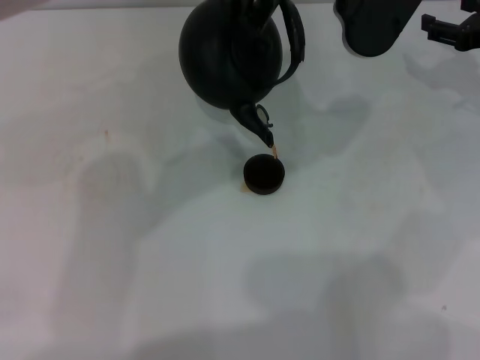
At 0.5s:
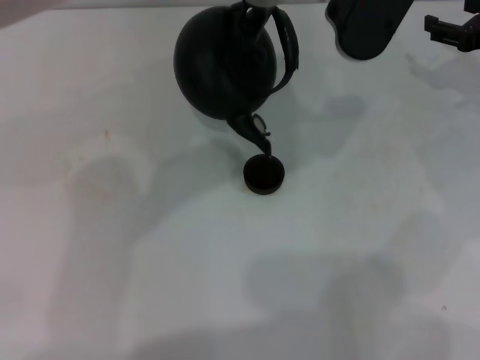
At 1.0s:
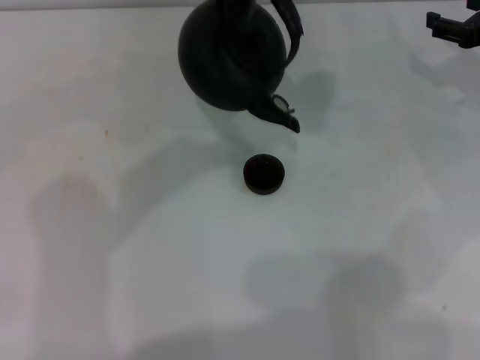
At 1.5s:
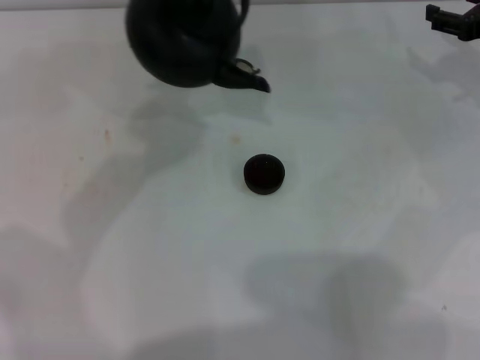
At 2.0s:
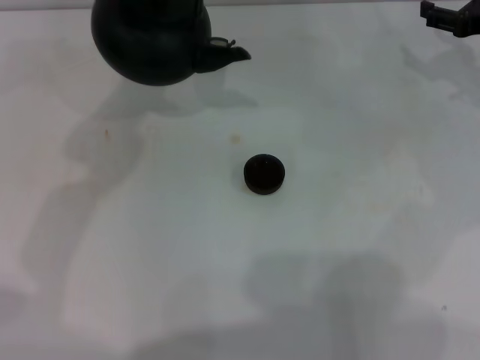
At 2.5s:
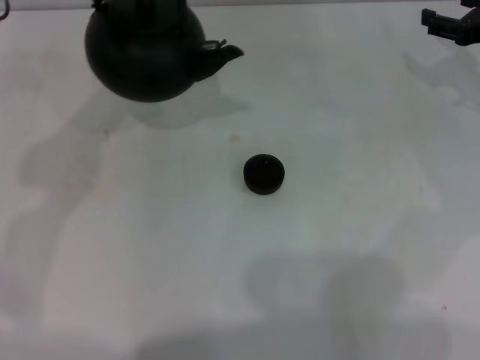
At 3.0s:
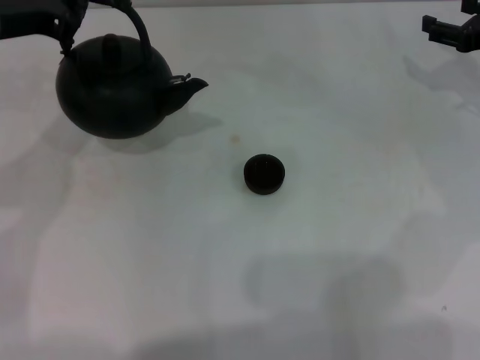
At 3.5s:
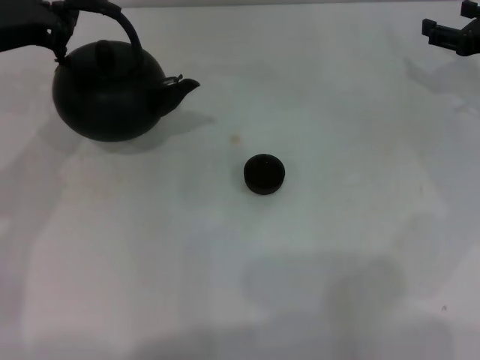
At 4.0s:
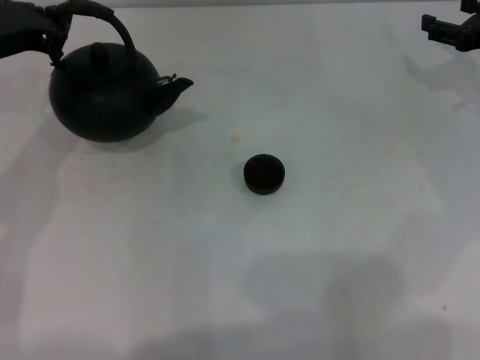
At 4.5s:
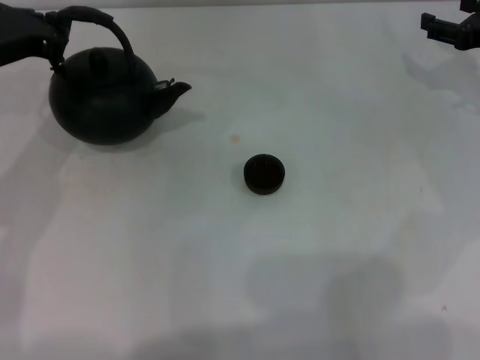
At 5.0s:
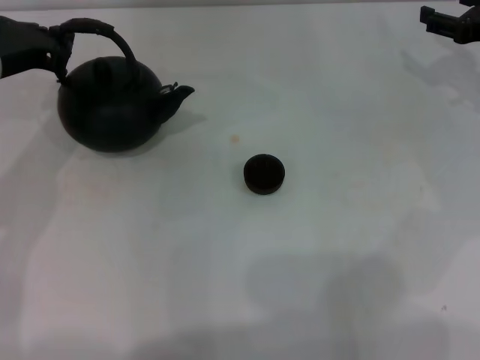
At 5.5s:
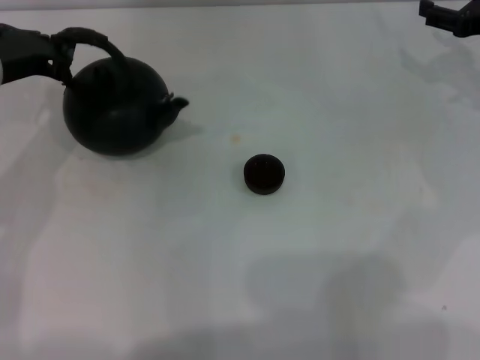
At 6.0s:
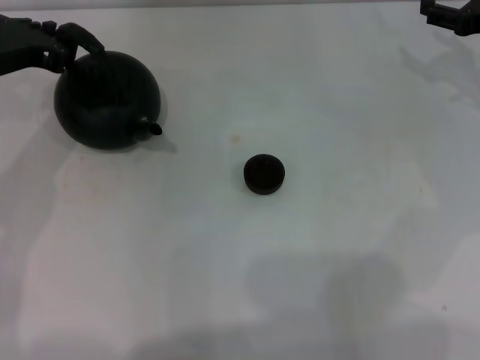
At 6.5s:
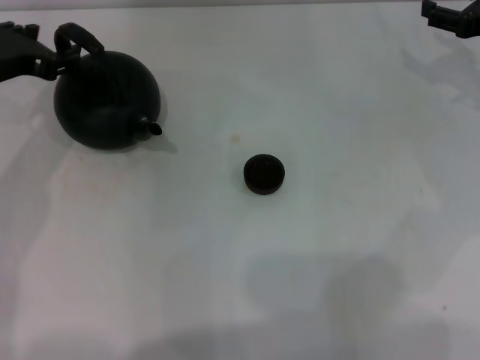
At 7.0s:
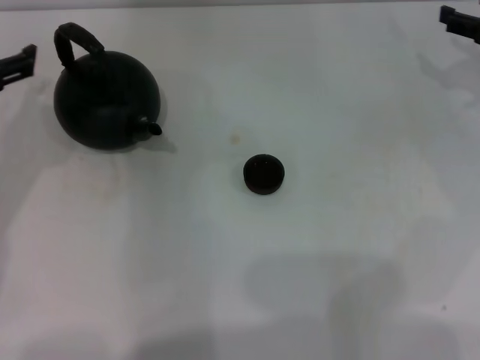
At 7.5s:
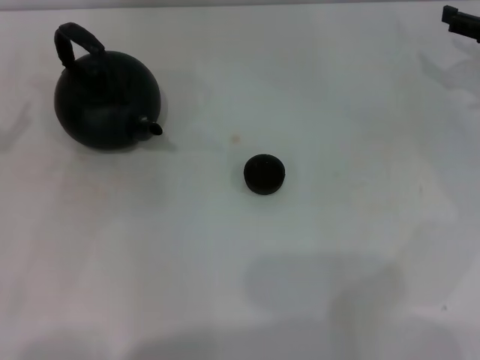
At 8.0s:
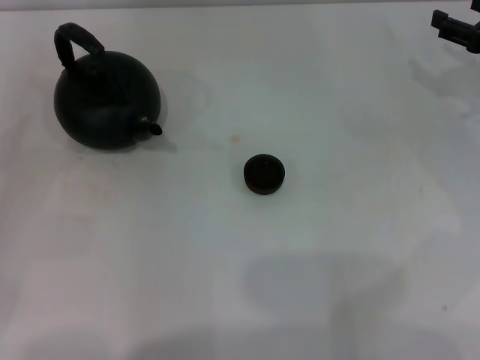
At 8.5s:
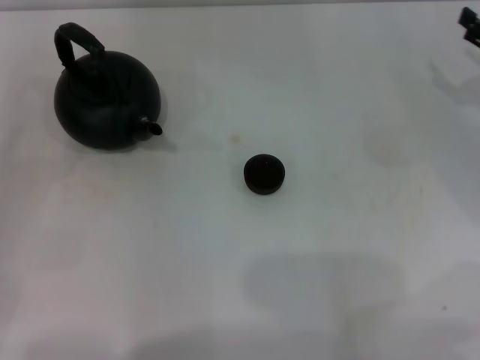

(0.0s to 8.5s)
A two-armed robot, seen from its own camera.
Task of the whole recording: Grasp the handle of the teapot with one hand and pour tea into the teacup.
Step, 1.5s - 6.5s: Put down the teapot with the left gripper.
0.0s - 2.0s: The left gripper heads to the left, covering approximately 20 cm.
2.0s - 4.0s: The left gripper travels to the left and downward by roughly 15 cm.
4.0s - 6.5s: The left gripper opens.
6.5s - 8.5s: The right gripper travels backward by some 5 cm, while the left gripper heads backward, to the left and downward, covering approximately 20 cm, and opens its fingers.

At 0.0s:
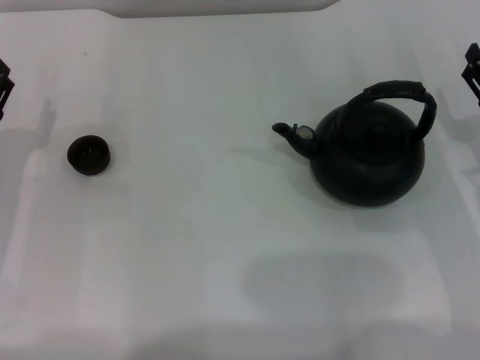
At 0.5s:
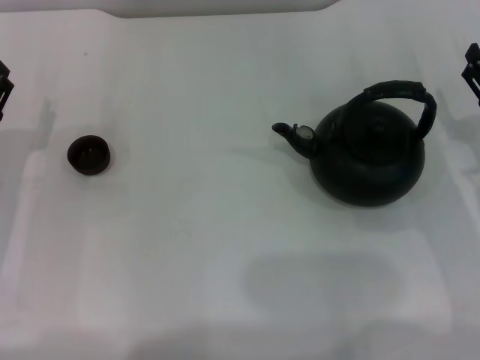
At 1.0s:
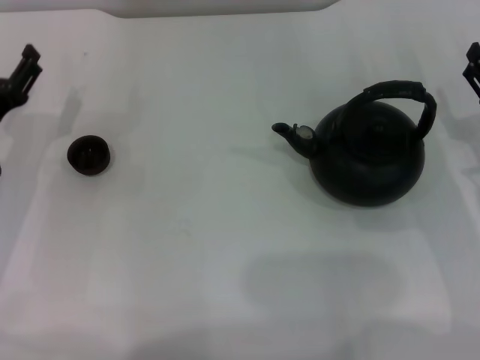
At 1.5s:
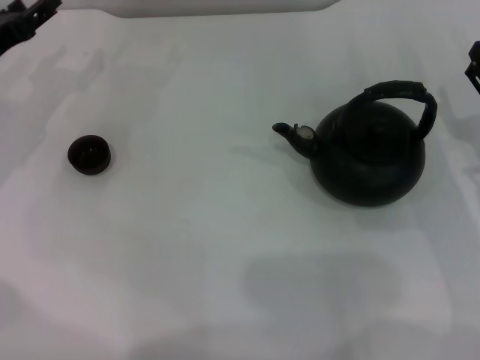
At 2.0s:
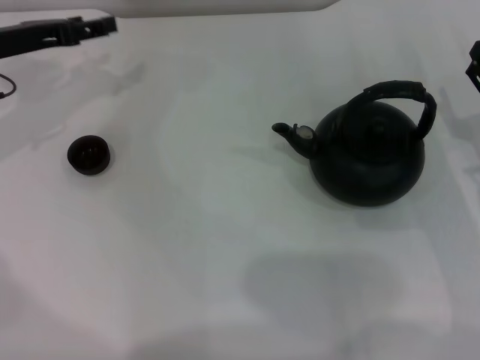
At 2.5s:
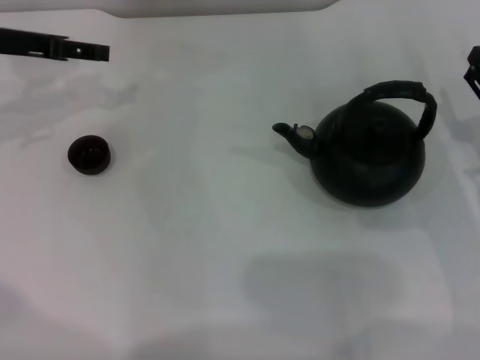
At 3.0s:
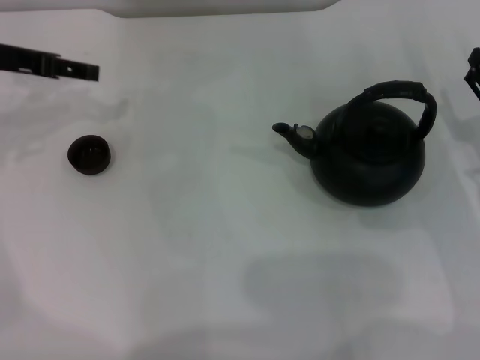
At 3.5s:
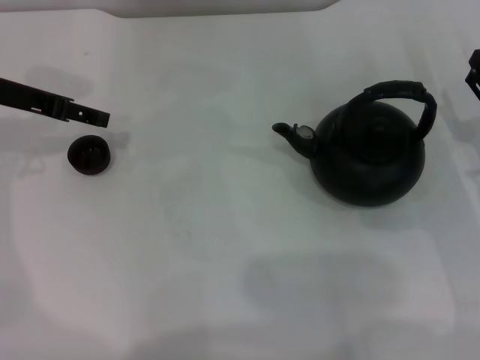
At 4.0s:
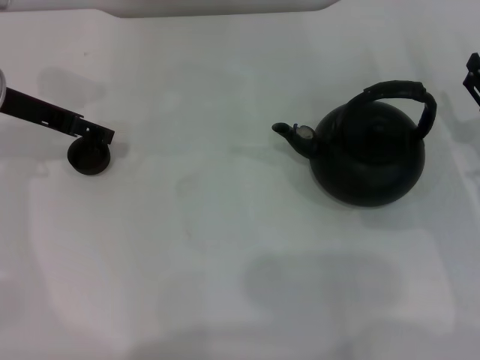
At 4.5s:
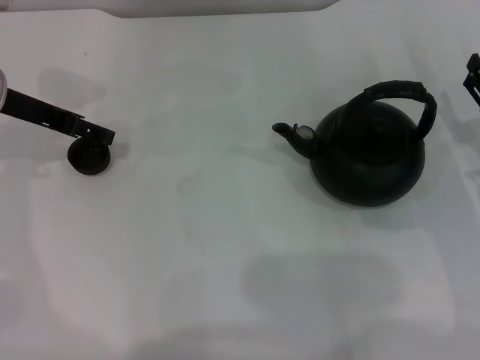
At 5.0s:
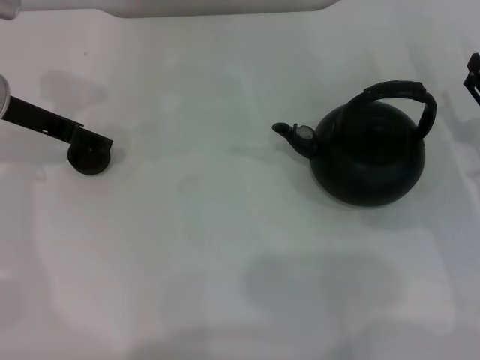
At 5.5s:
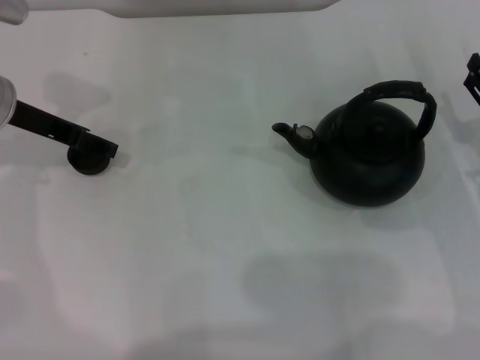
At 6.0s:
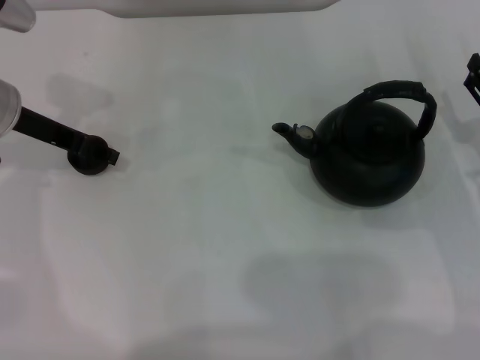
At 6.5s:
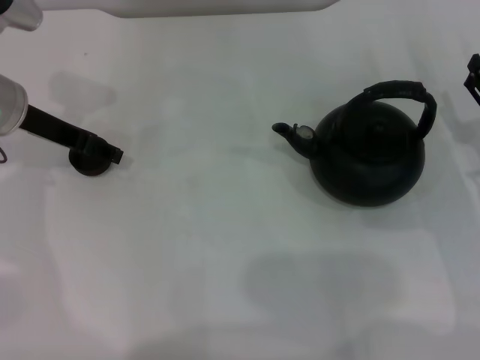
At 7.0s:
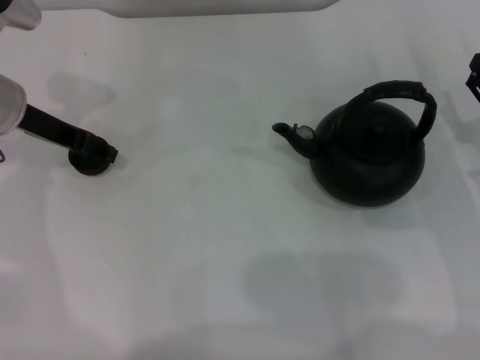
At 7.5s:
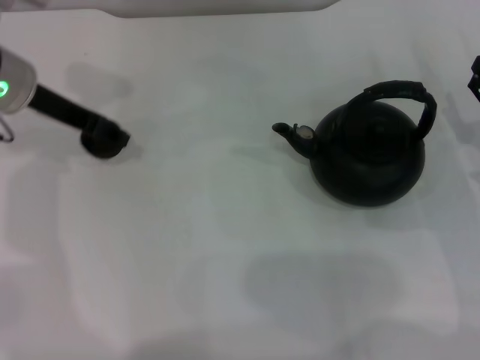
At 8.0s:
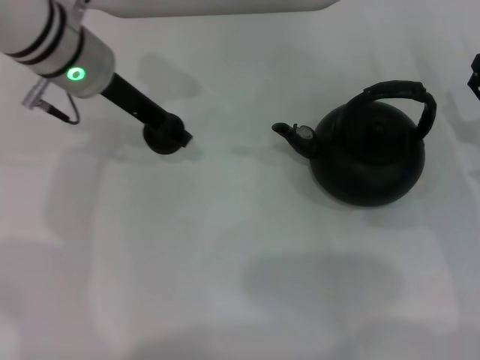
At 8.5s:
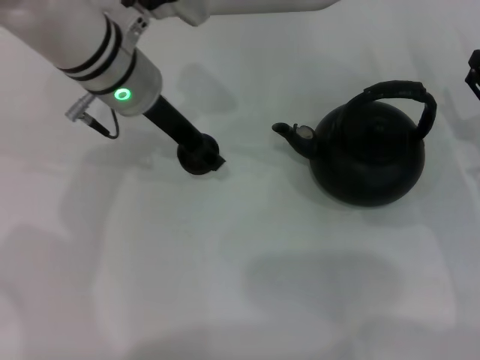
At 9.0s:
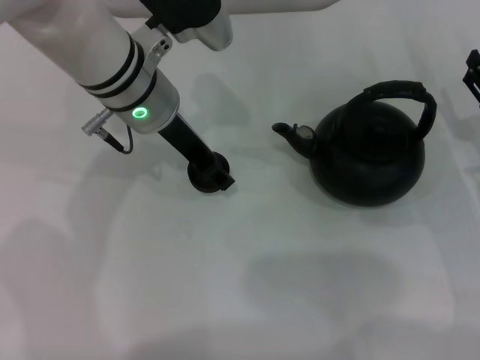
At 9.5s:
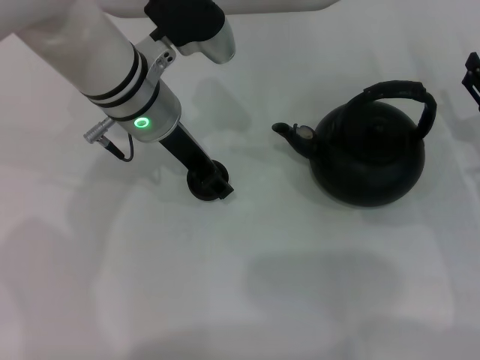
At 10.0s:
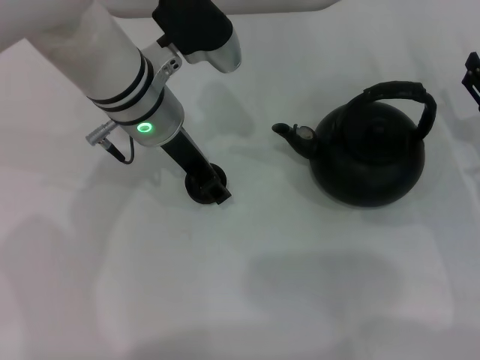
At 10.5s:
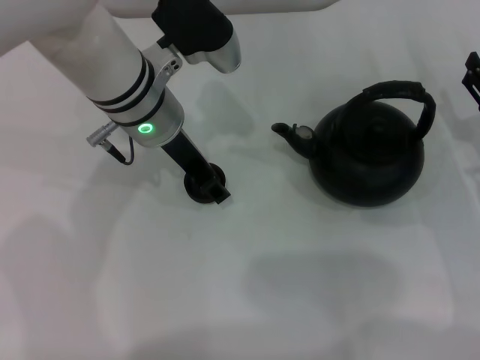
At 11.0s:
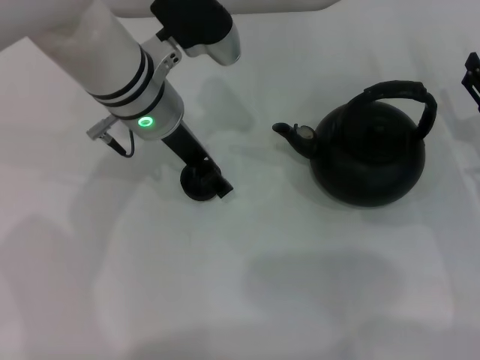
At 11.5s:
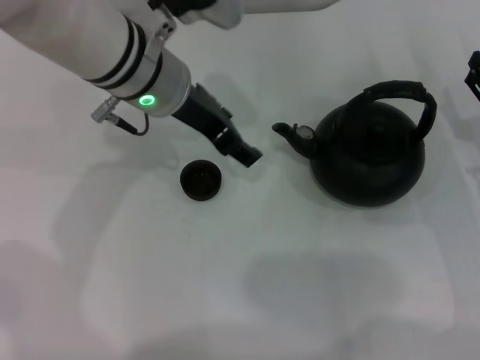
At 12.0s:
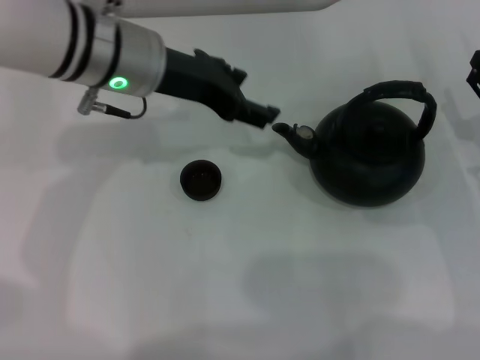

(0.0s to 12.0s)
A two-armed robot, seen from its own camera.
Task of the whole recording: Grasp the handle of the teapot with one hand and pour tea into the teacup.
Step, 0.0s - 7.5s: Pick up the teacup with the left gripper.
Step, 8.0s - 11.5s: Place the teacup in the center of view with the left gripper.
0.0s - 2.0s: The left gripper is displaced forward and upward by roughly 15 cm.
2.0s - 4.0s: The left gripper opens.
4.0s - 6.0s: The grippers move only a little.
6.0s - 8.0s: The left gripper moves to the right, approximately 10 cm, and closes up.
8.0s - 10.0s: The left gripper moves to the right, approximately 5 cm.
10.0s - 12.0s: The left gripper ends up approximately 5 cm from where it was, and opens up.

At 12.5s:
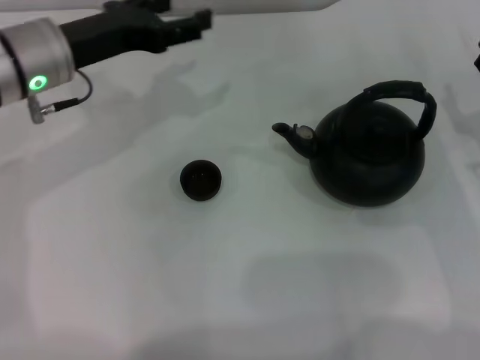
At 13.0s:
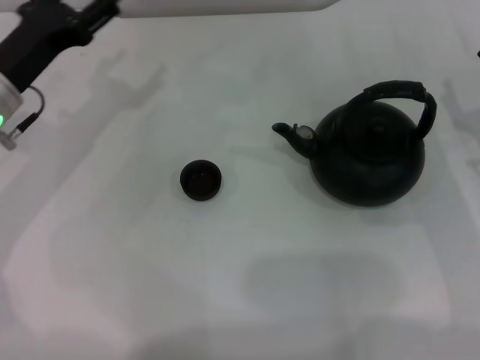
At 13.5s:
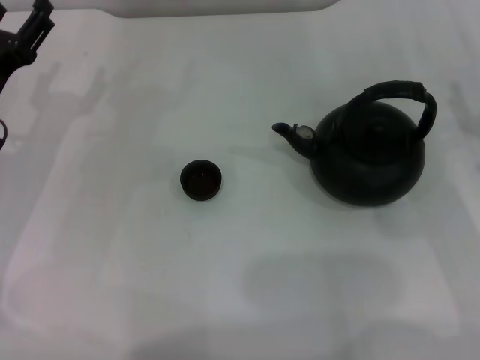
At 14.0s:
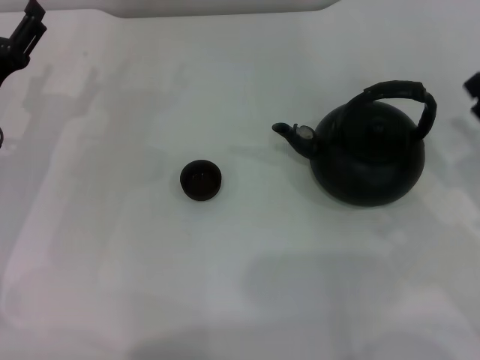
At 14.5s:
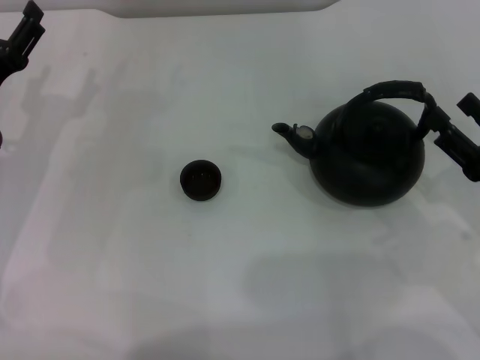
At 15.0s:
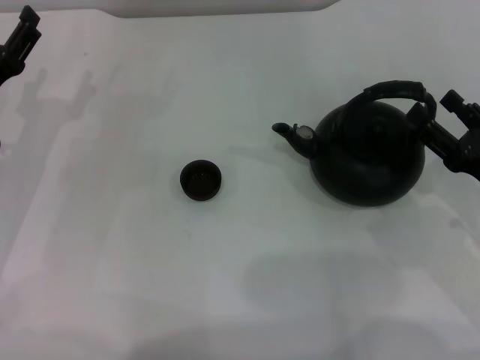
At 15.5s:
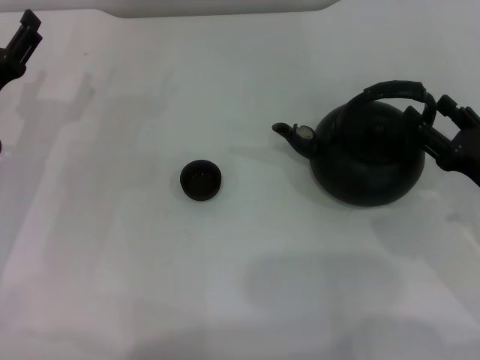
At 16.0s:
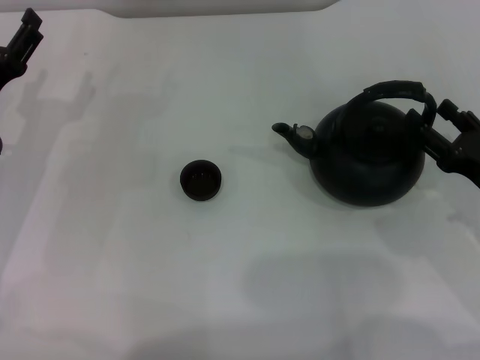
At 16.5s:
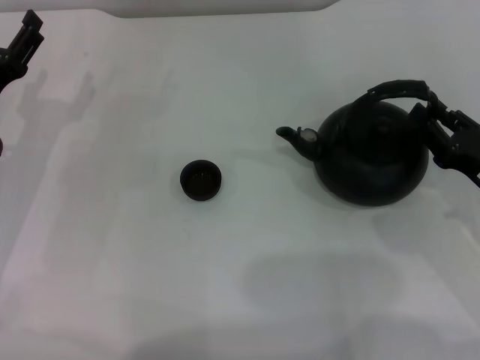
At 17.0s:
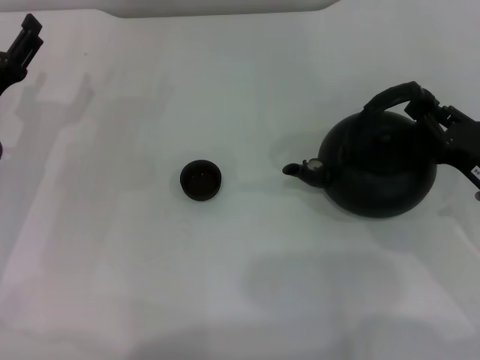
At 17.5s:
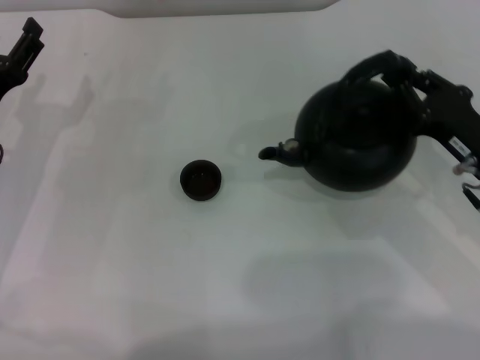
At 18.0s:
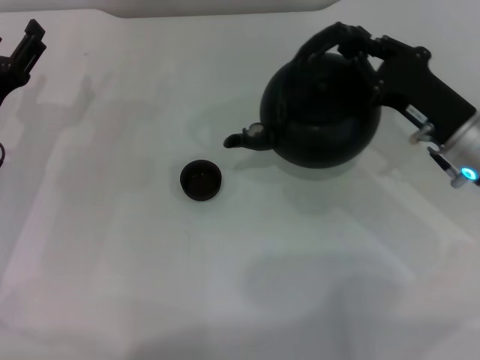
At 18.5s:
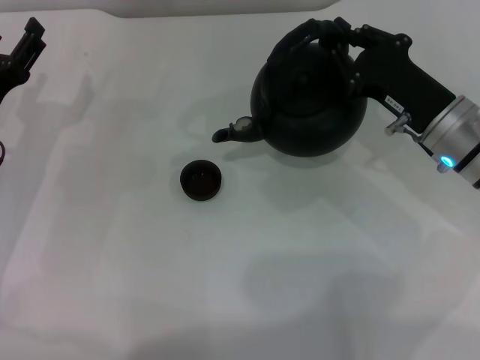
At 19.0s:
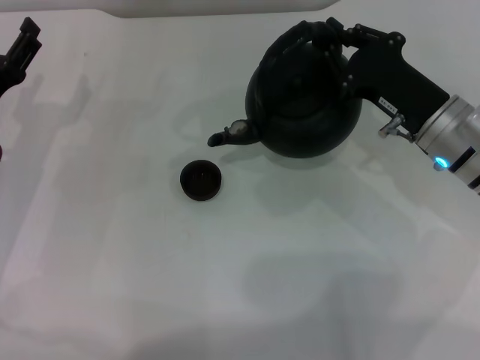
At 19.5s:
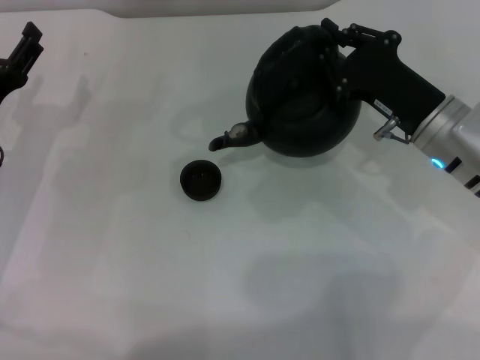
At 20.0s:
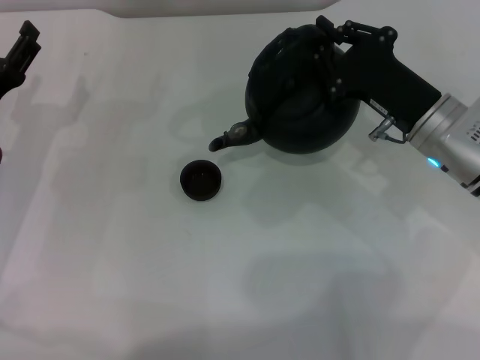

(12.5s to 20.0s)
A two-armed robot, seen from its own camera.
Task of the whole recording: Grasp the handle of the teapot with one hand and pour tea into the teacup.
Step, 12.5s - 17.0s: Pick up the teapot with the right gripper.
12.5s - 14.5s: The right gripper travels backward by about 5 cm. Meanwhile the left gripper goes approximately 15 cm downward, to the left and backward.
14.5s - 16.5s: The grippers make only small movements.
16.5s - 18.0s: The right gripper moves forward and to the left, about 10 cm, and closes.
